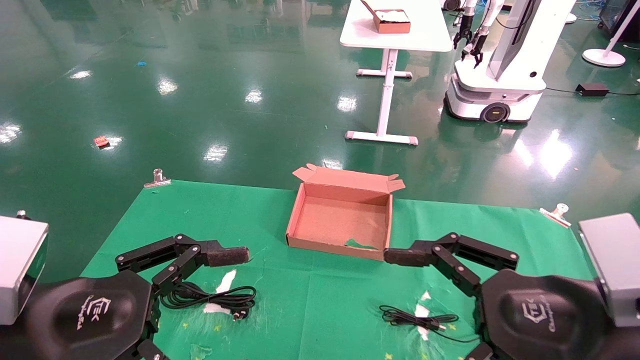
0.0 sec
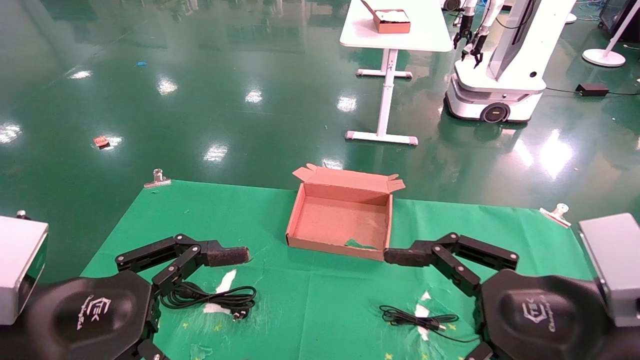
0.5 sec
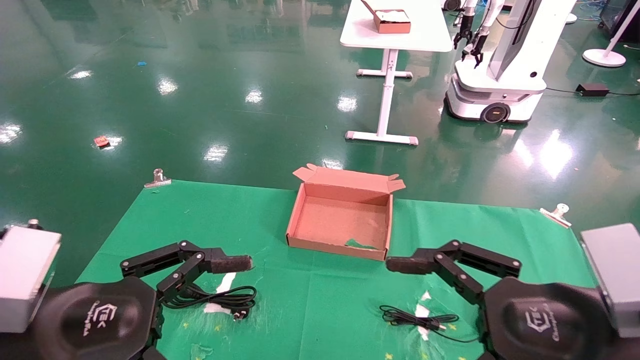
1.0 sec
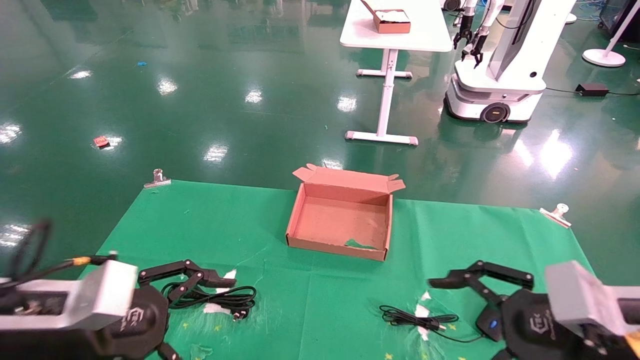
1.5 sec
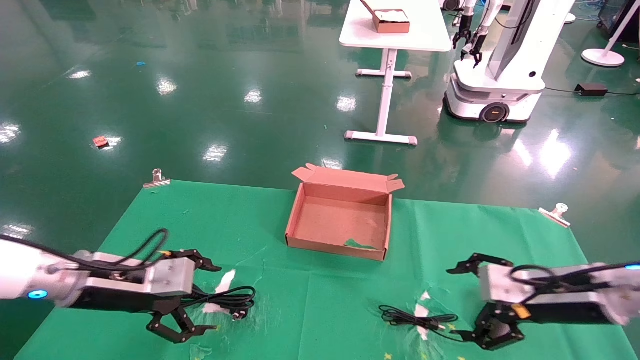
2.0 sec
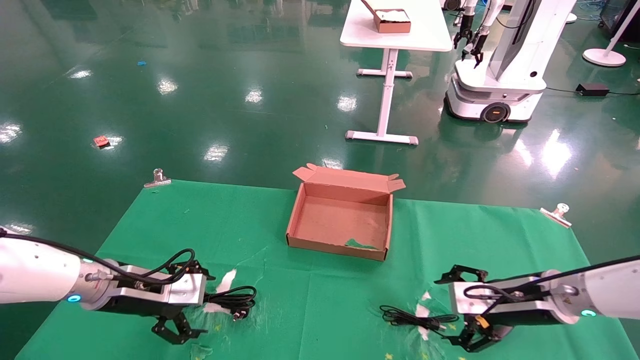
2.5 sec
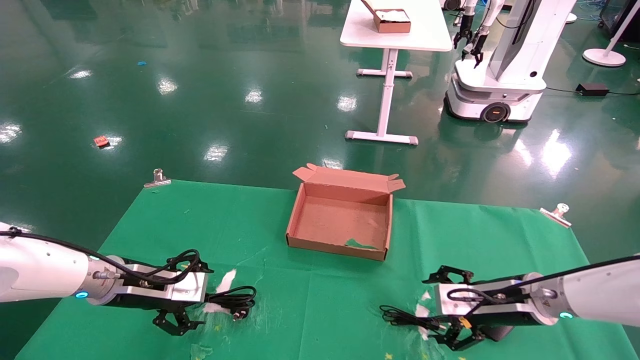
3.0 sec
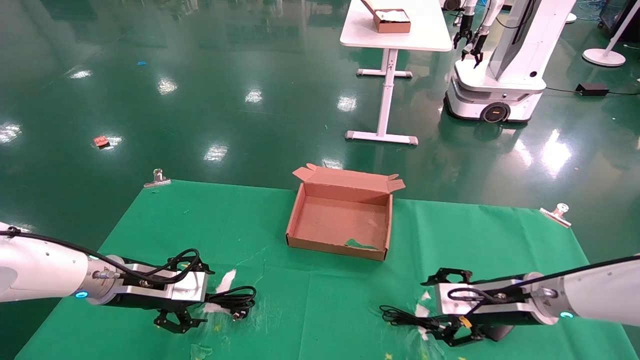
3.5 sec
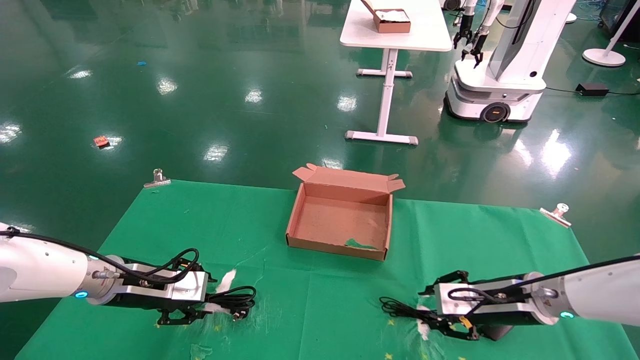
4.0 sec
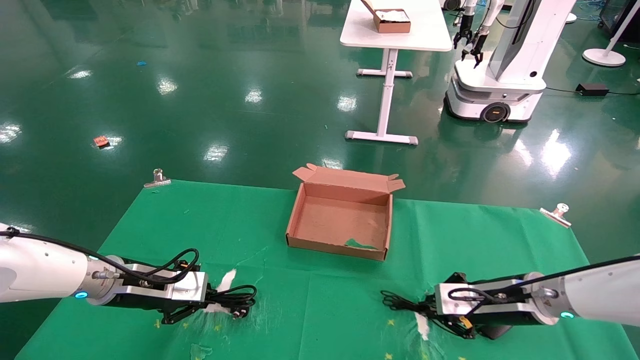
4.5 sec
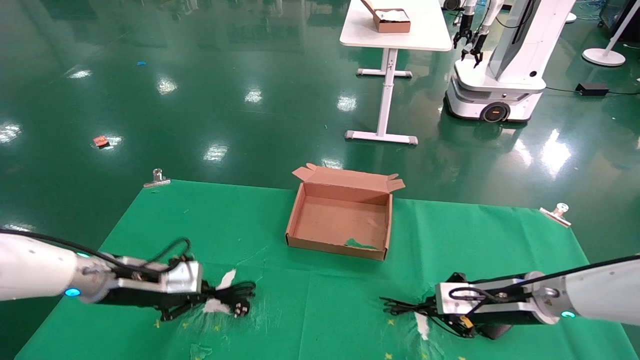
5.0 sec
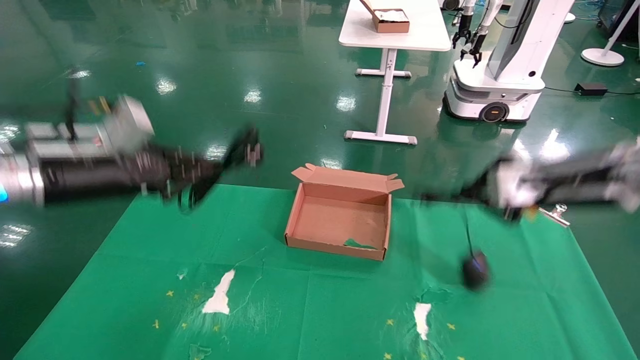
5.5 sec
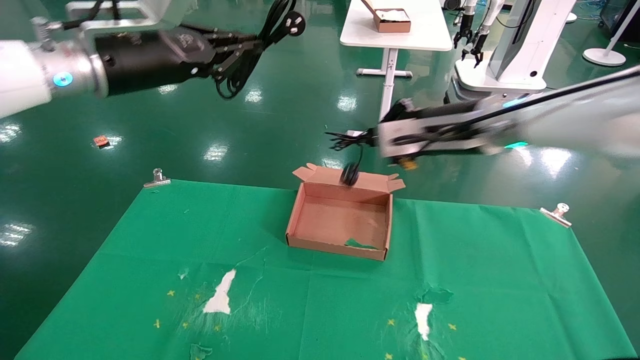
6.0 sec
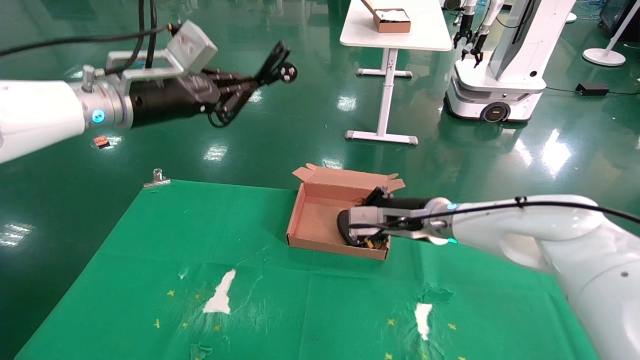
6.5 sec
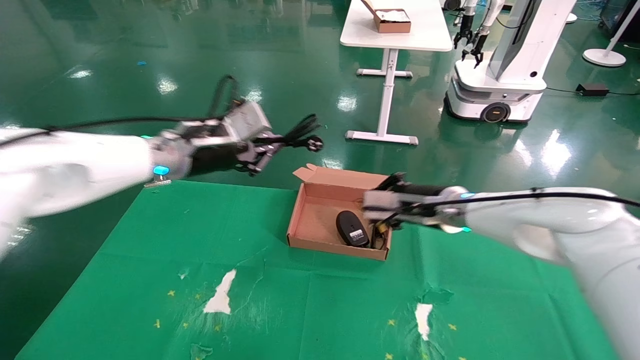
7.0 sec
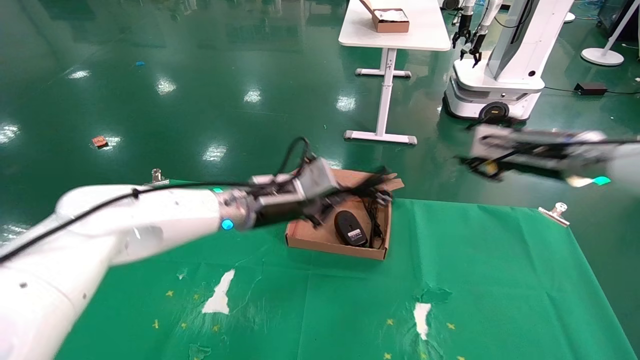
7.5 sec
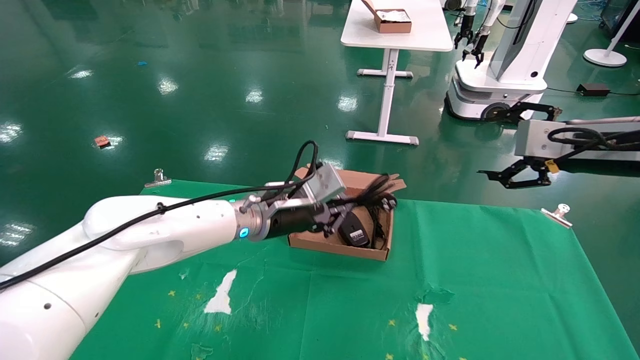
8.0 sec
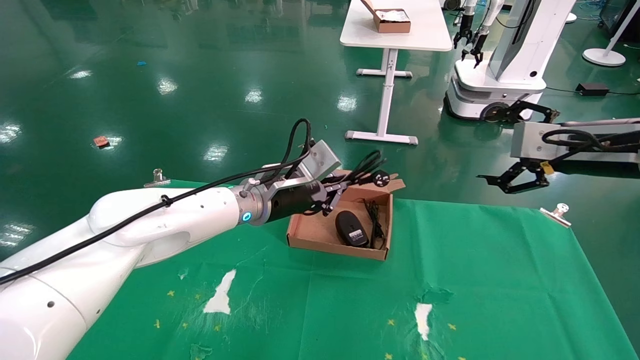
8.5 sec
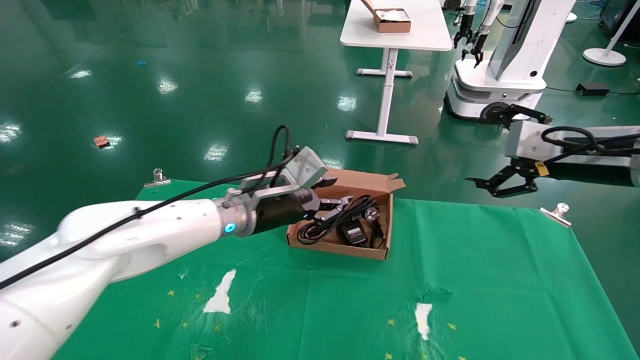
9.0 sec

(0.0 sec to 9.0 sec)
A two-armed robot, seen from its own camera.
Step, 1.5 sec - 5.0 sec: Grab and lift both the mouse and power cord from the accessory packaging area at the same time.
0.0 sec - 2.0 sec: The left gripper shifts approximately 20 cm forward. The right gripper moves forward, to the right and downward, some 20 cm.
2.0 sec - 4.5 sec: The grippers both shift forward by roughly 5 cm. The right gripper closes its fingers. Meanwhile the left gripper closes.
4.5 sec - 7.0 sec: The left gripper is displaced upward and to the right by roughly 20 cm, while the right gripper shifts roughly 15 cm upward, to the left and forward.
7.0 sec - 9.0 sec: The right gripper is displaced to the right, backward and upward by some 20 cm, and opens its fingers; the left gripper heads downward and to the right, covering about 15 cm.

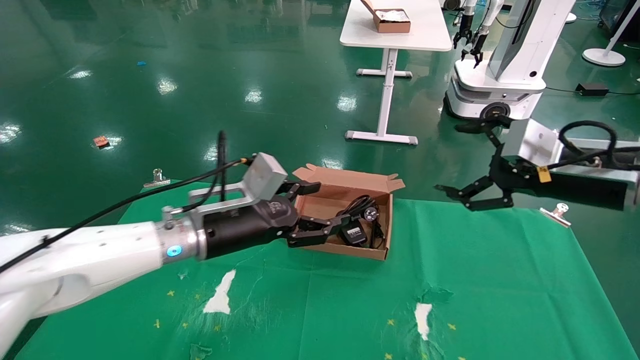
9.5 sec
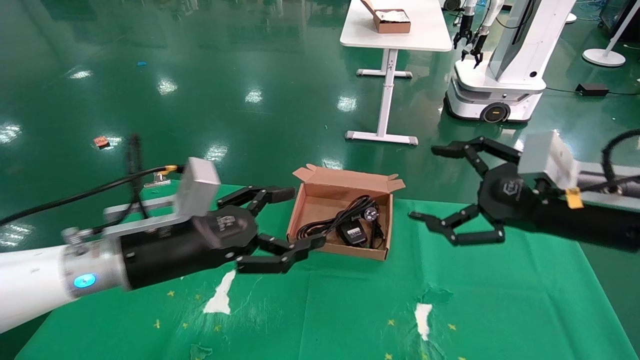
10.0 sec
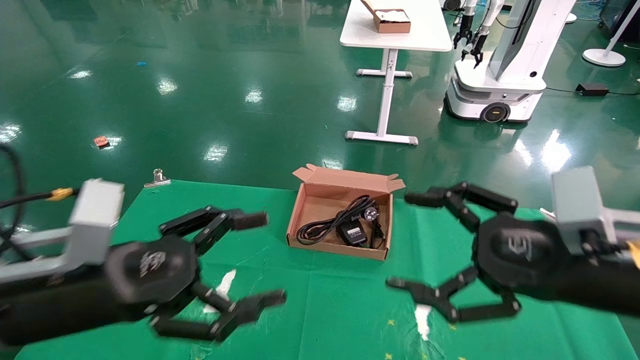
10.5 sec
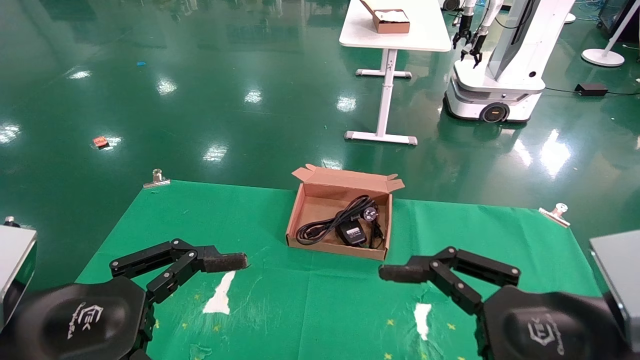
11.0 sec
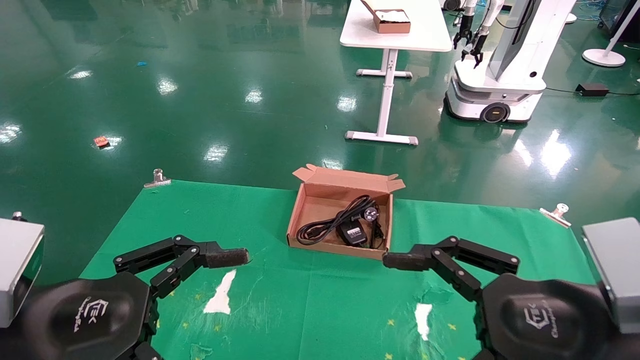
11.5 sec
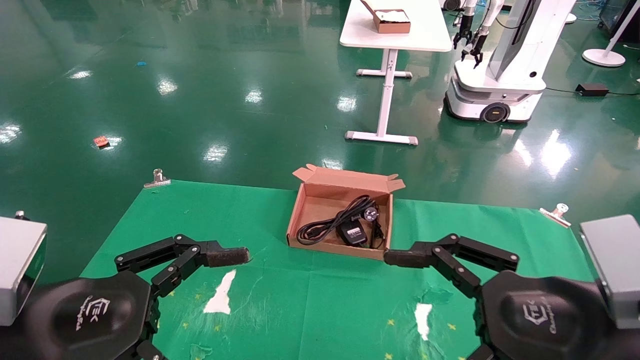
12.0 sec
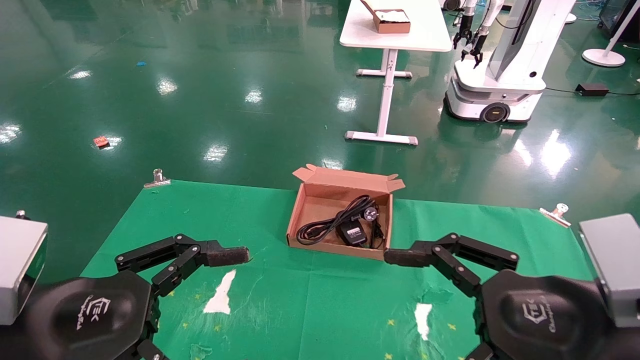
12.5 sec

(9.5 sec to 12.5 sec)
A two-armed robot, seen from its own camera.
9.5 sec - 11.0 sec: The left gripper moves backward and to the left, about 25 cm, while the right gripper shifts roughly 20 cm backward, to the left and downward.
11.0 sec - 12.5 sec: Both grippers stay about where they are.

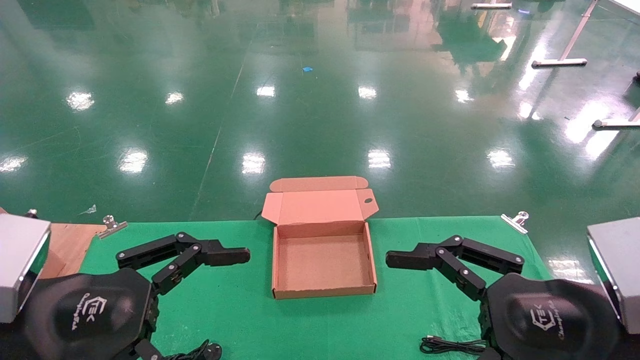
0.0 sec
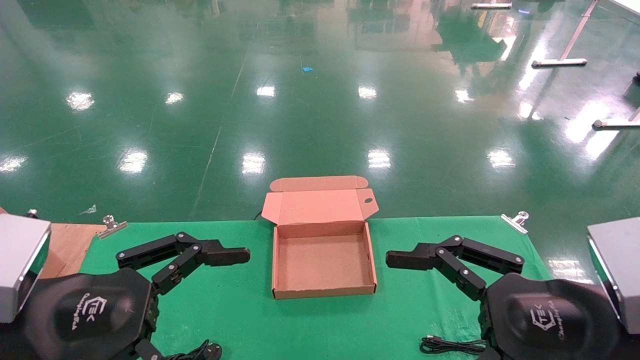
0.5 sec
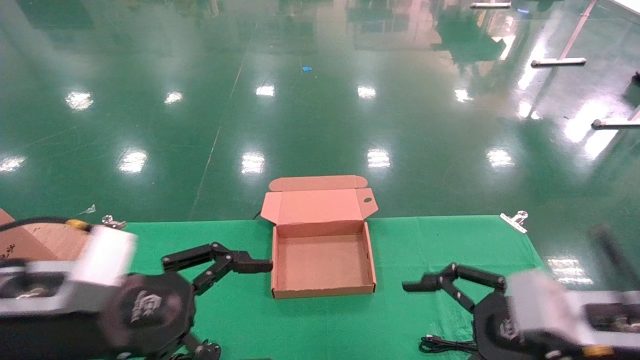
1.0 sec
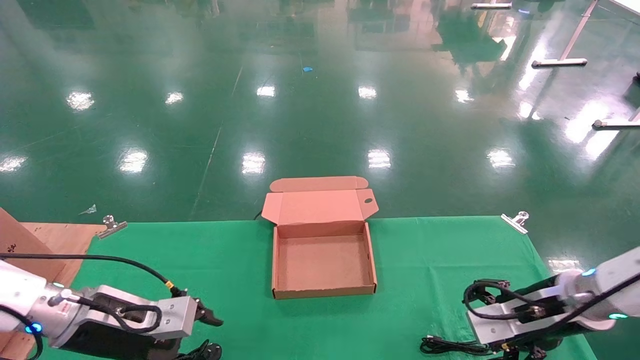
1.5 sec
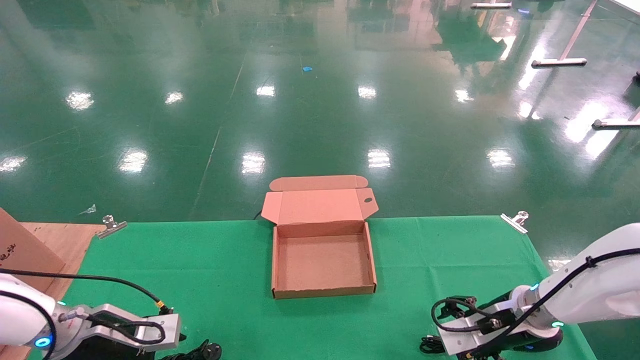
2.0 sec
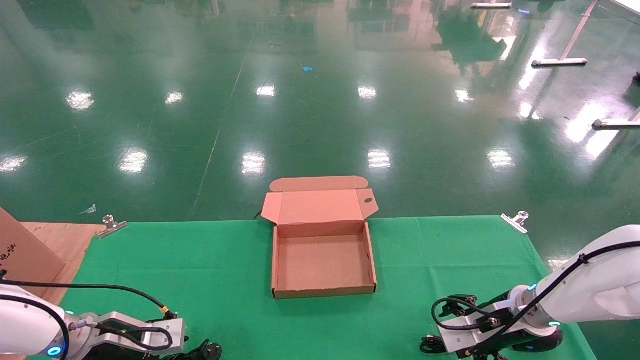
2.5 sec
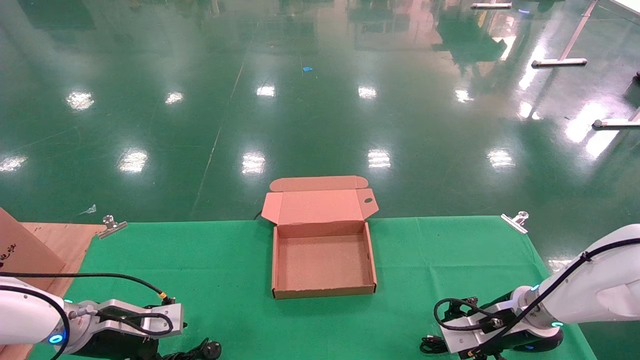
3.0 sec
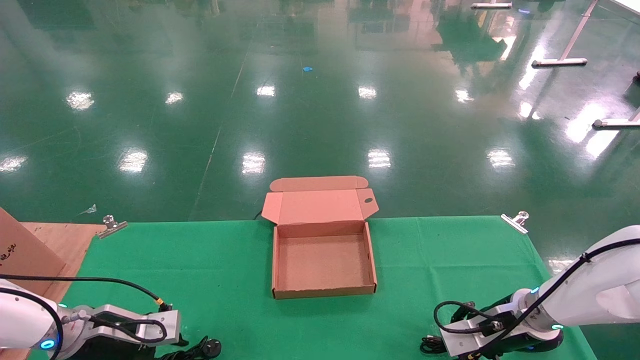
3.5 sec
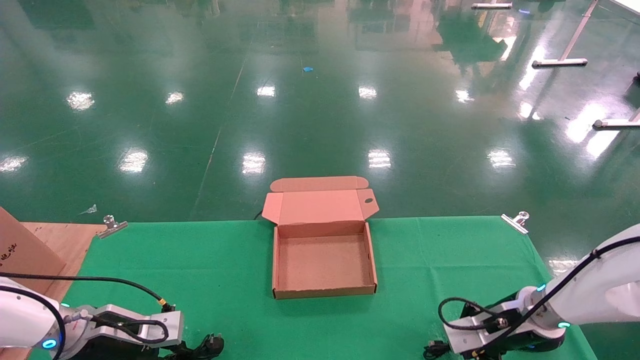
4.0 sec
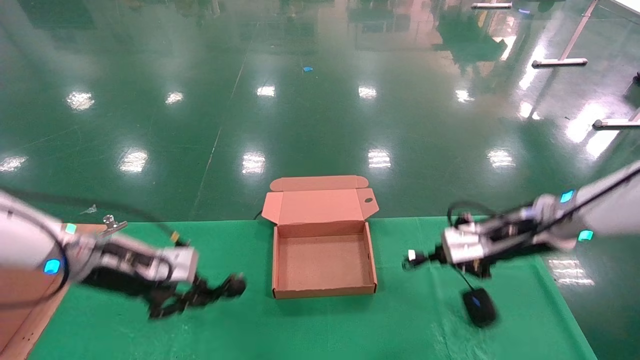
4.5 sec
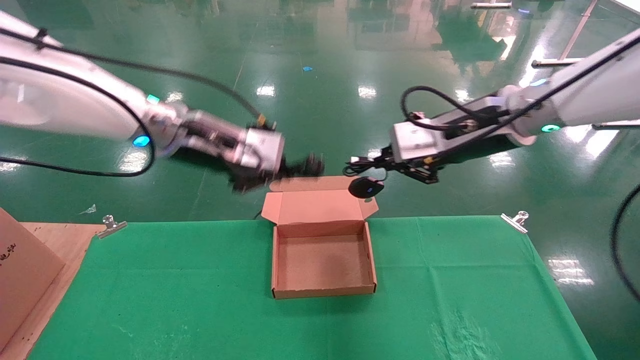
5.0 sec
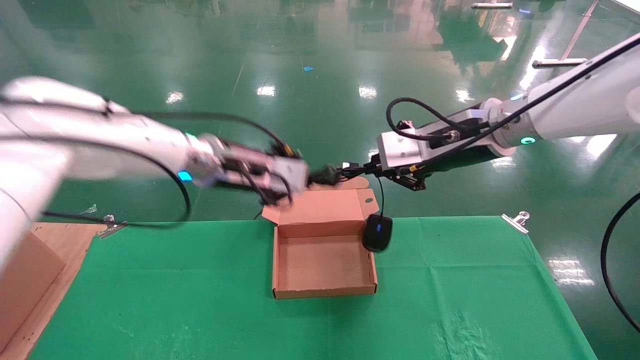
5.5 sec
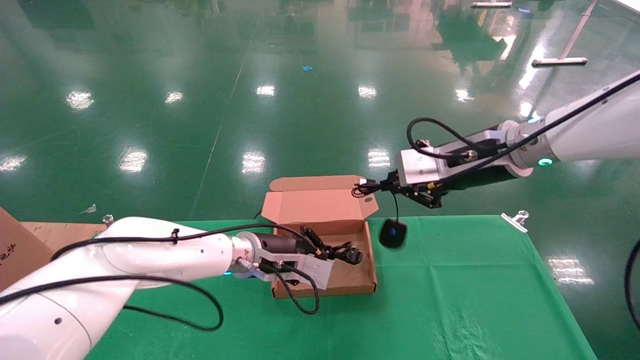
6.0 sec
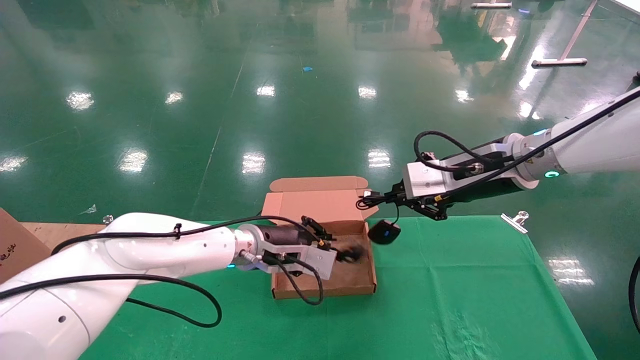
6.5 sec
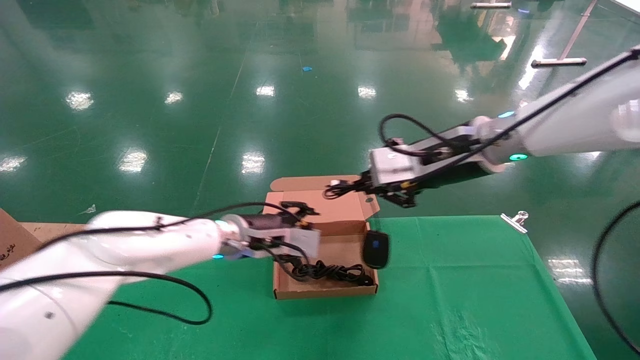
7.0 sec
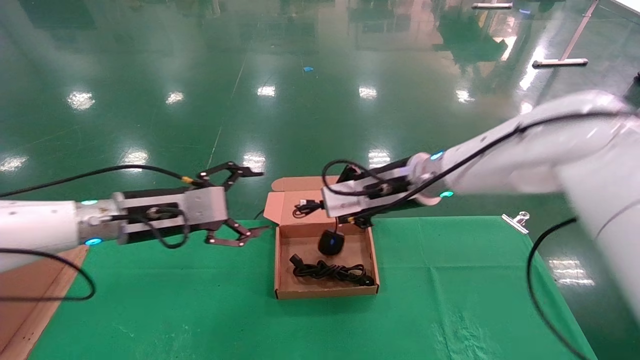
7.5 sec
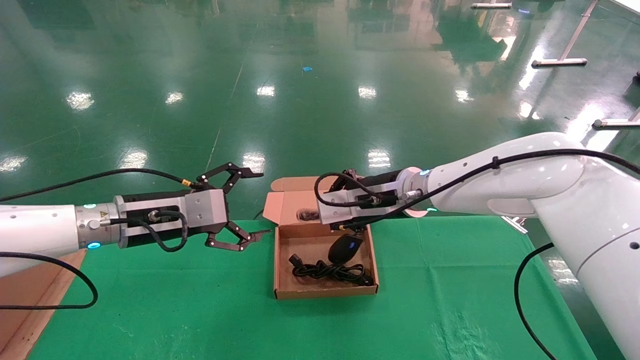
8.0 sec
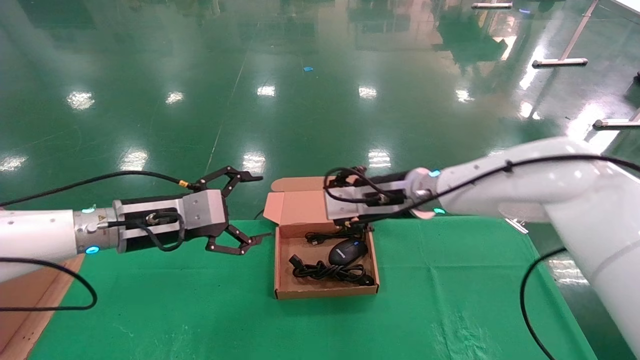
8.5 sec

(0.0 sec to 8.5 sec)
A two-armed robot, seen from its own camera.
Step, 1.0 sec - 4.0 sec: Grab and lift both the mouse and power cord from the accessory packaging area at the same time.
0.0 sec - 2.0 sec: The grippers both shift forward and downward by roughly 25 cm.
2.0 sec - 4.0 sec: The left gripper closes up; the right gripper closes.
4.0 sec - 6.5 sec: The right gripper heads upward, covering some 25 cm, while the left gripper moves to the right, about 25 cm.
6.5 sec - 8.5 sec: The left gripper goes some 15 cm to the left and backward, and opens. The right gripper moves to the left and downward, some 10 cm.
